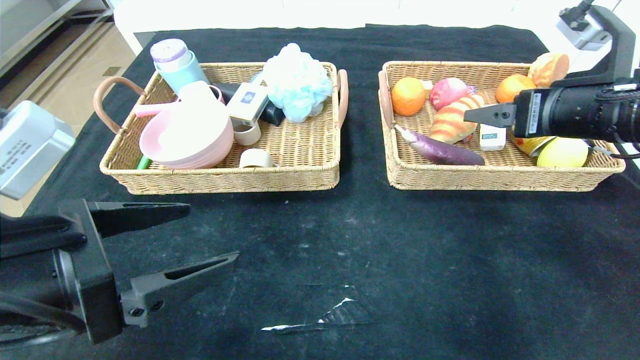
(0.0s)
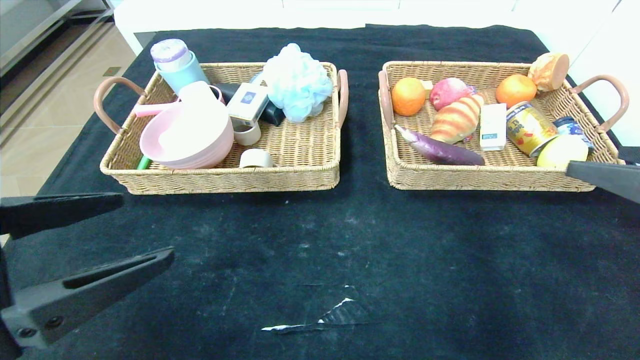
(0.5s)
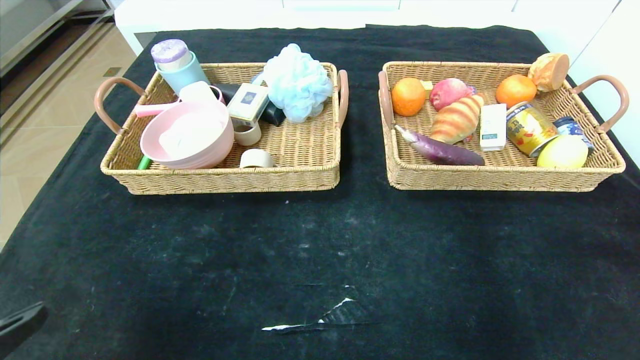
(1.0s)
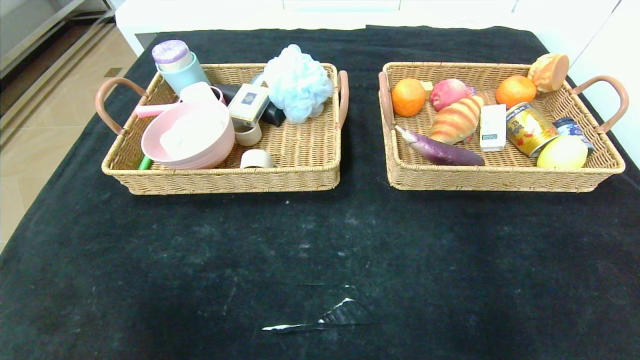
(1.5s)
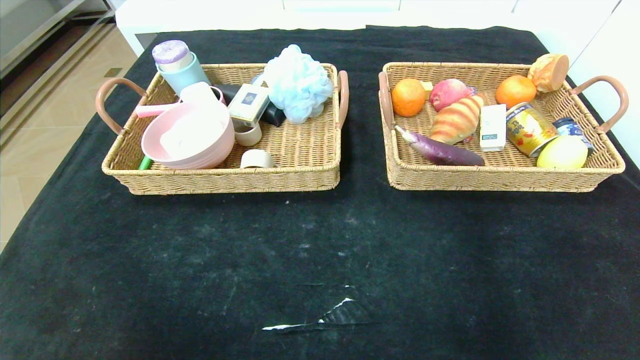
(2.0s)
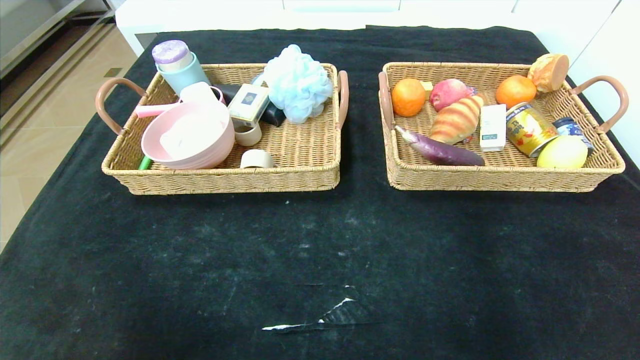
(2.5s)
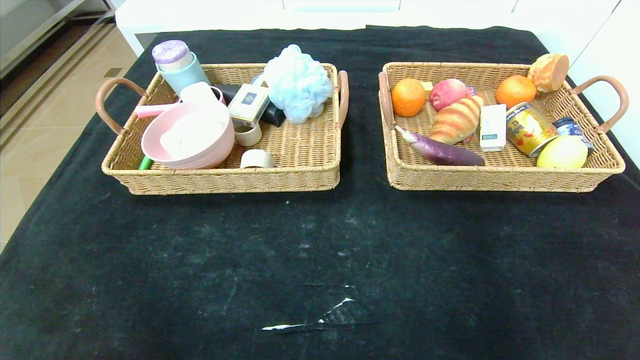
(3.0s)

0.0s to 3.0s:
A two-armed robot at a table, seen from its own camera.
0.0s to 1.5s: The right gripper heads backward, covering some 35 cm, while the left gripper is displaced backward and to the left by roughly 20 cm.
